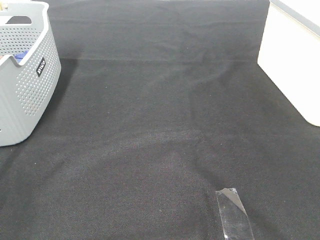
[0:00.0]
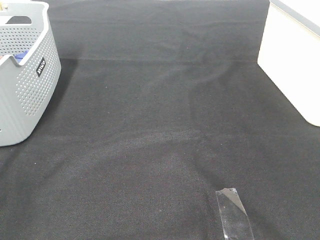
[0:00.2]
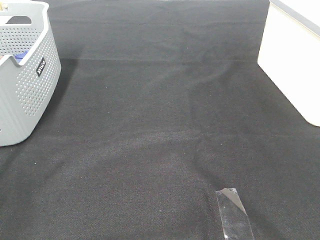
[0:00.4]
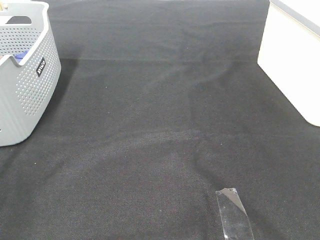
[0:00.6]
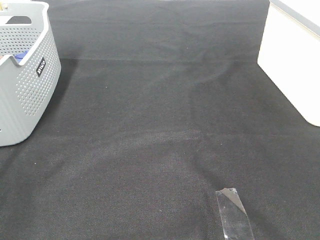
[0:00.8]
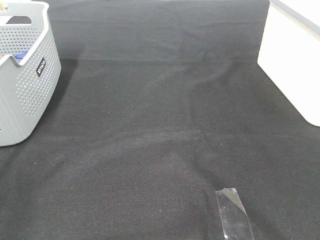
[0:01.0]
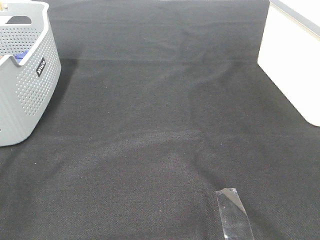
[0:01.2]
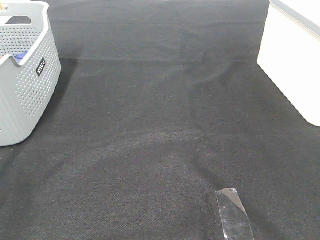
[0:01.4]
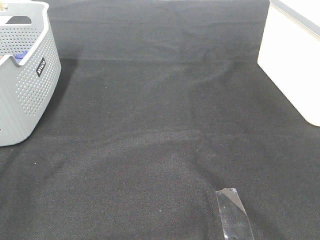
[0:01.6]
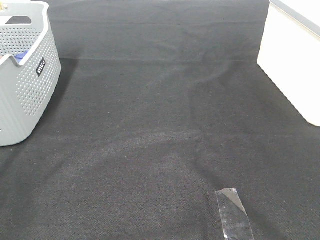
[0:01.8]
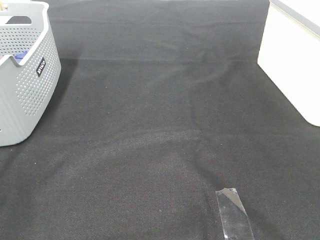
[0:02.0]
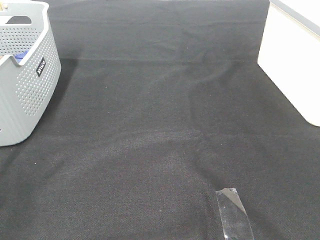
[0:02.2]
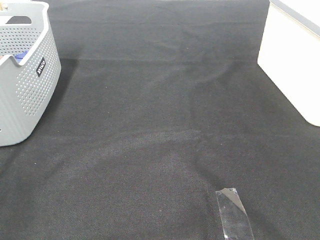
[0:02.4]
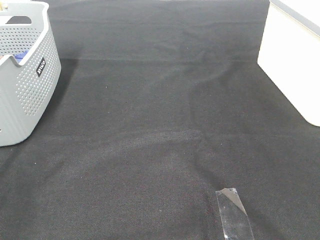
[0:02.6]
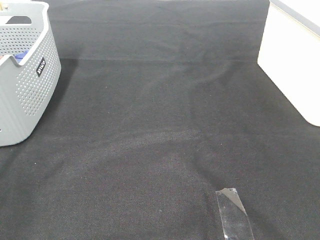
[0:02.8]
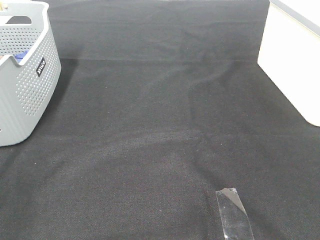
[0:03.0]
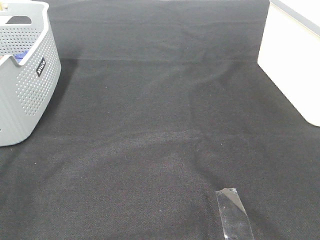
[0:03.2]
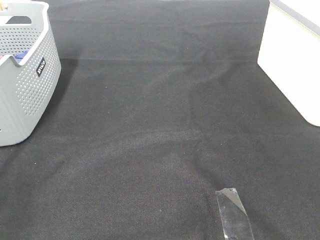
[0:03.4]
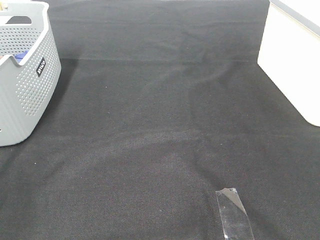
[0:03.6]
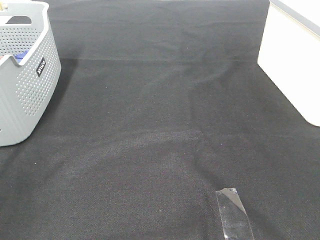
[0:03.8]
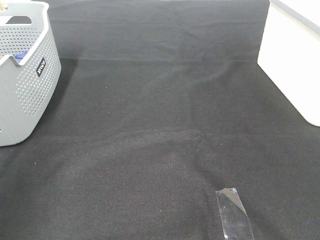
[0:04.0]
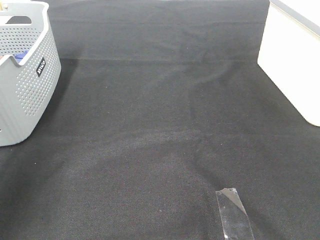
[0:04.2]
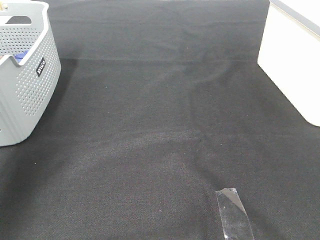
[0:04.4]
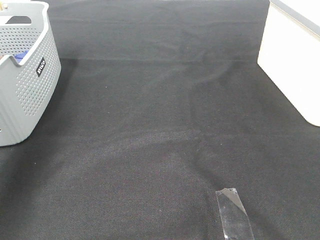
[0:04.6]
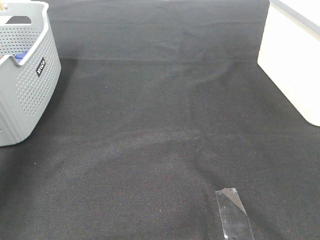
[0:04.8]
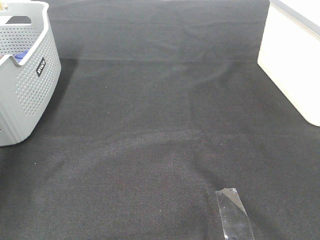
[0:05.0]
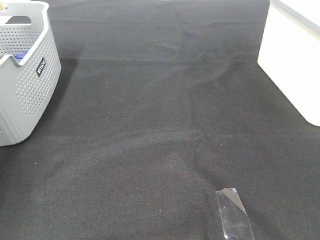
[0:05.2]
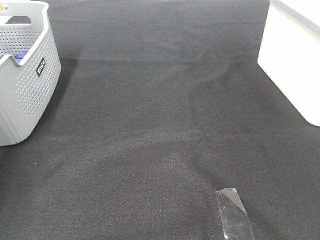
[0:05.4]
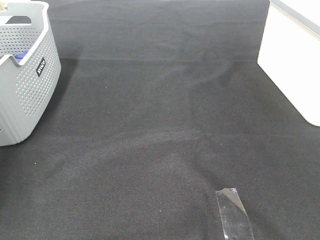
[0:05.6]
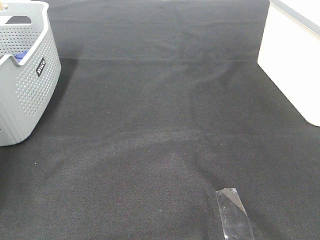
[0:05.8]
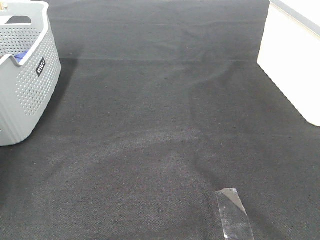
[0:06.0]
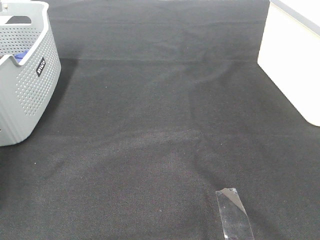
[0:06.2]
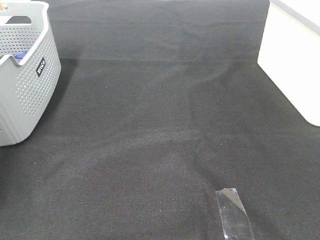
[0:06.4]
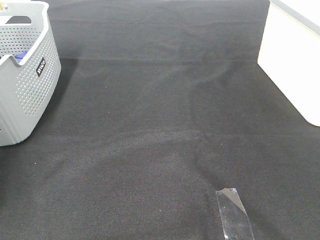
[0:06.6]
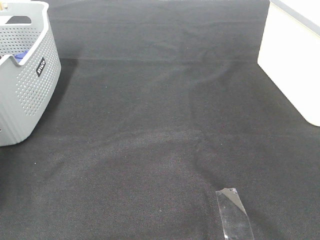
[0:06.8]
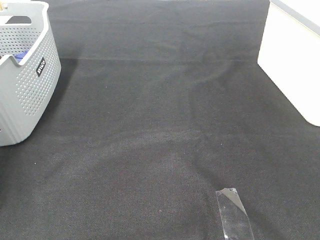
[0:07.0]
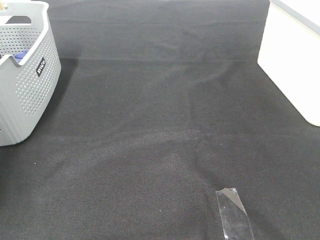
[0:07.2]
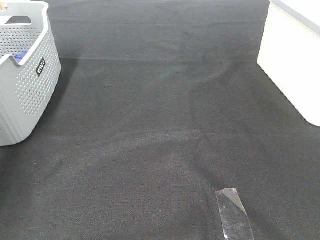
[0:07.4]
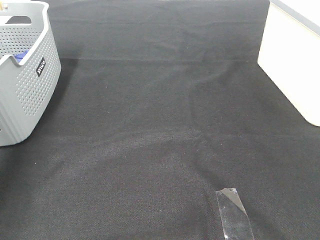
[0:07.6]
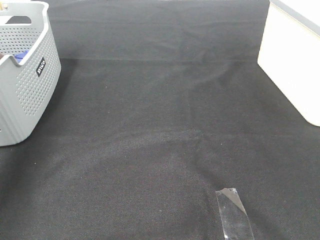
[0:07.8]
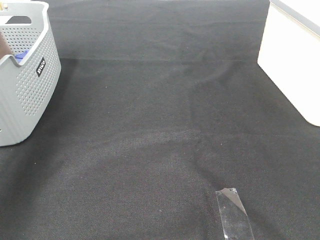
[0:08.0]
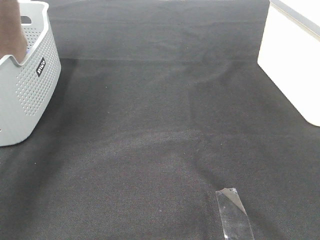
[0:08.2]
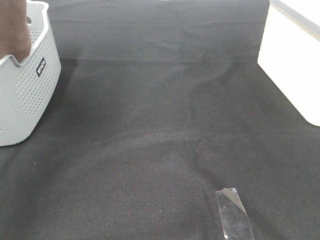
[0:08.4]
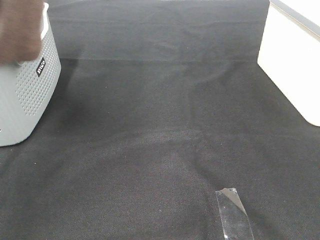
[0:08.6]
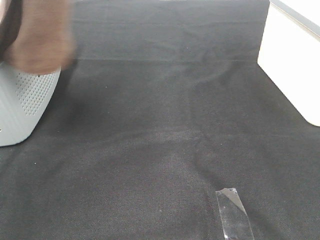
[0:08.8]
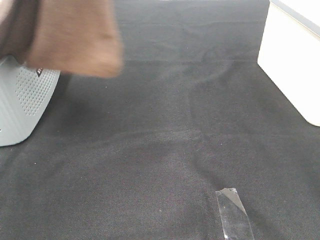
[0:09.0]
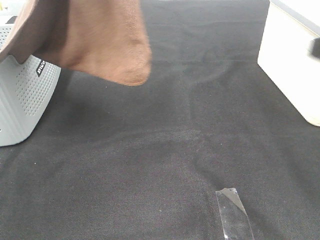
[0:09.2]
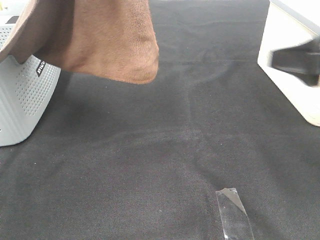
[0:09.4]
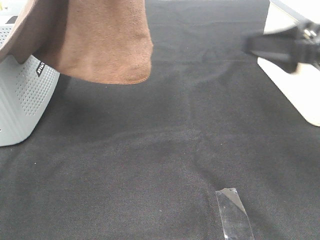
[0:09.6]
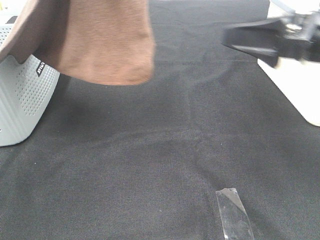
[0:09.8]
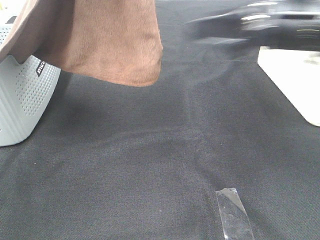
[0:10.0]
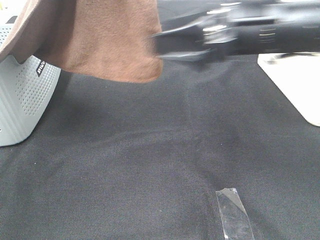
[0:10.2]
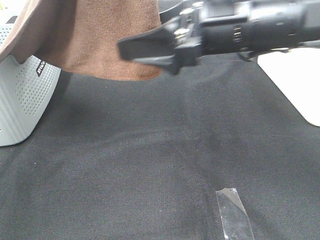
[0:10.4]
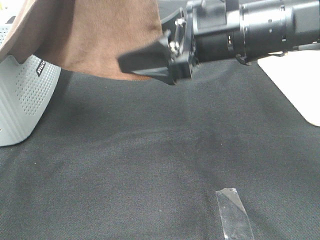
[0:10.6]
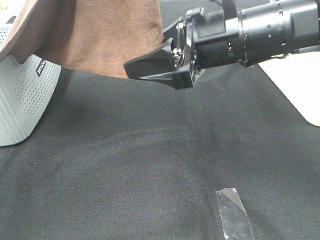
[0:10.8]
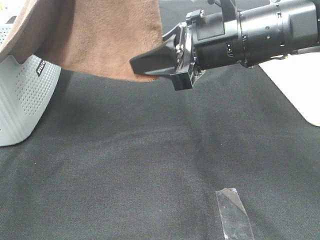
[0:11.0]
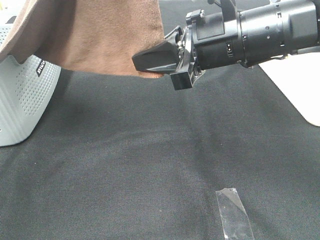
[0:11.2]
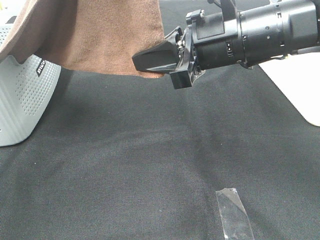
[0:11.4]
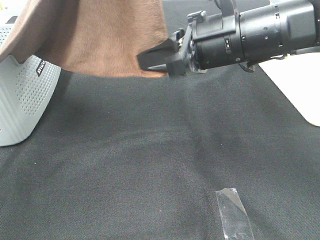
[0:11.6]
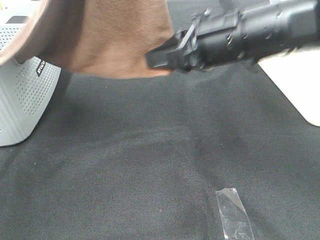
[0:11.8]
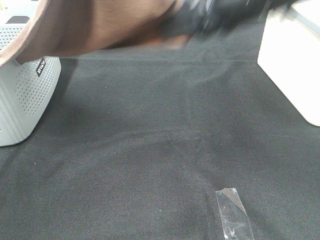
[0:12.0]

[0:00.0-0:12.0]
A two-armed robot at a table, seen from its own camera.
Task of the whole recording: Remove the towel and place it.
Step, 0:07.8 to 0:12.0: Right hand: grab a corner of the brown towel and straighten it.
0:00.0 to 0:03.0: The two grippers keep their place.
0:03.0 to 0:04.4: The left gripper travels forward and upward by roughly 30 cm.
0:04.4 to 0:06.0: The left gripper goes approximately 30 cm forward and downward.
0:07.6 to 0:09.0: The left gripper moves to the right, backward and upward, some 25 cm, while the right gripper moves forward, approximately 10 cm.
0:09.0 to 0:10.4: The right gripper is displaced to the left and forward by approximately 25 cm.
0:10.4 to 0:12.0: The right gripper is displaced upward by approximately 5 cm, and closes.

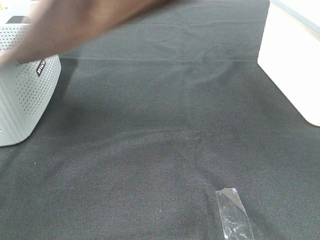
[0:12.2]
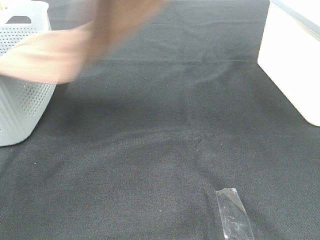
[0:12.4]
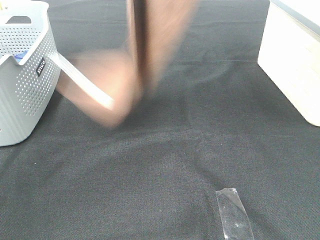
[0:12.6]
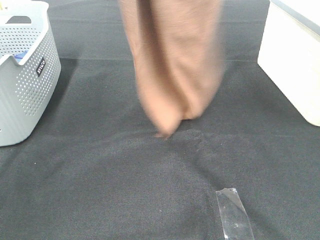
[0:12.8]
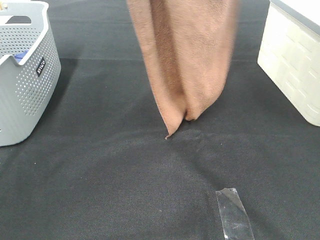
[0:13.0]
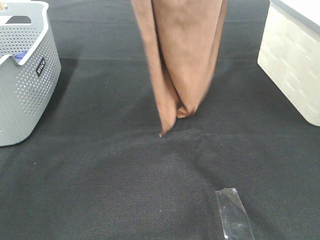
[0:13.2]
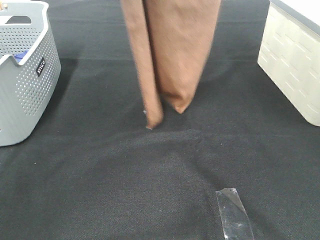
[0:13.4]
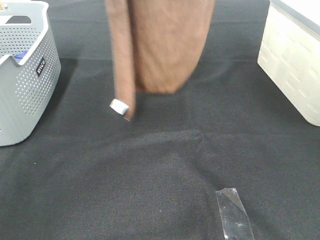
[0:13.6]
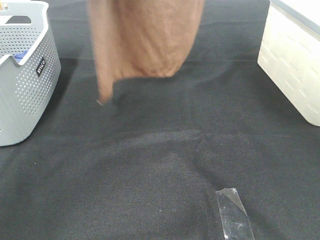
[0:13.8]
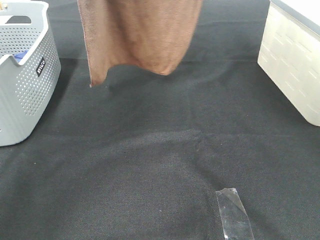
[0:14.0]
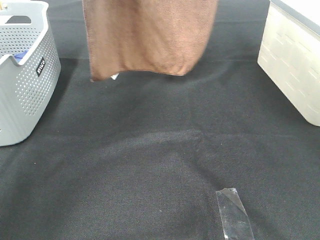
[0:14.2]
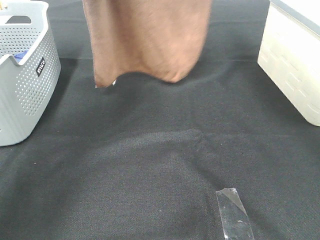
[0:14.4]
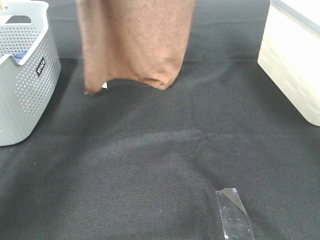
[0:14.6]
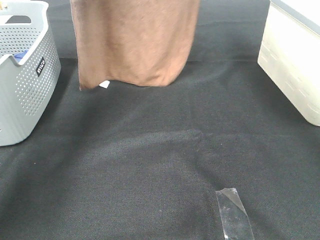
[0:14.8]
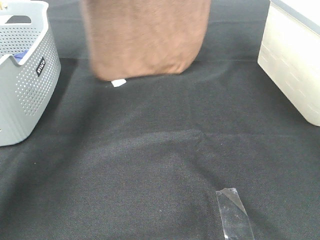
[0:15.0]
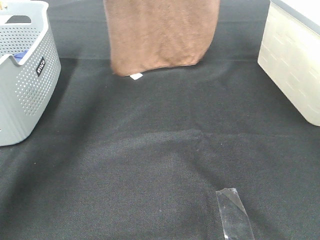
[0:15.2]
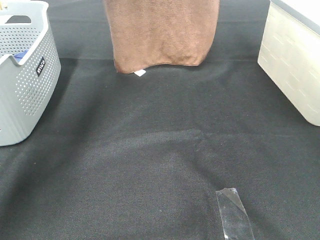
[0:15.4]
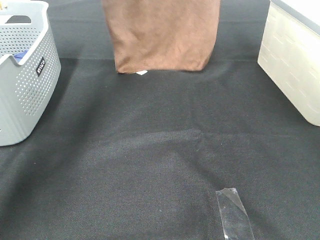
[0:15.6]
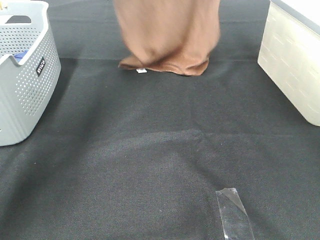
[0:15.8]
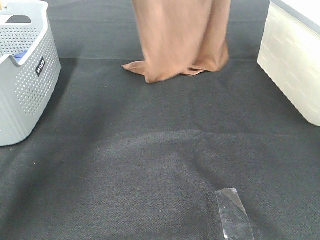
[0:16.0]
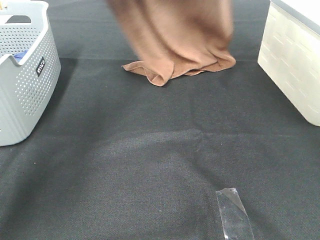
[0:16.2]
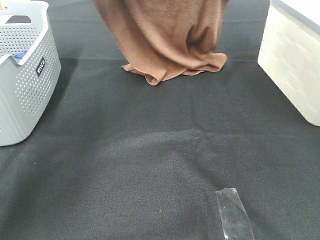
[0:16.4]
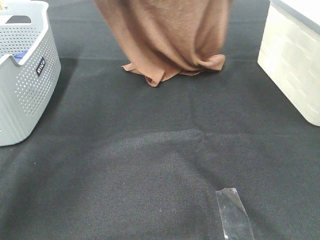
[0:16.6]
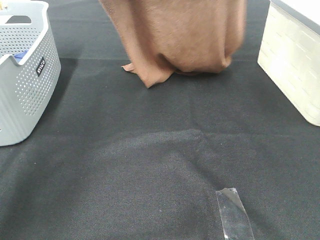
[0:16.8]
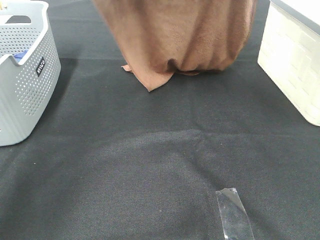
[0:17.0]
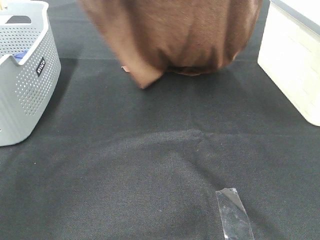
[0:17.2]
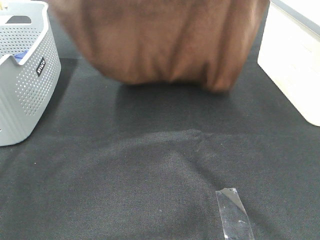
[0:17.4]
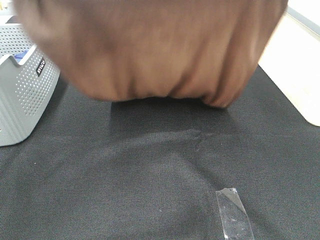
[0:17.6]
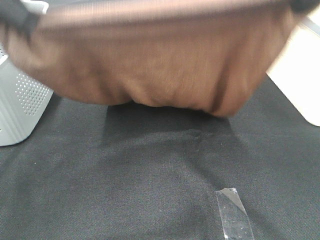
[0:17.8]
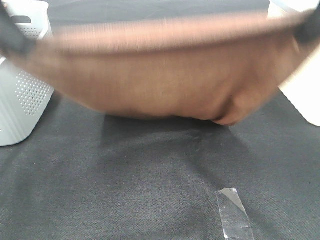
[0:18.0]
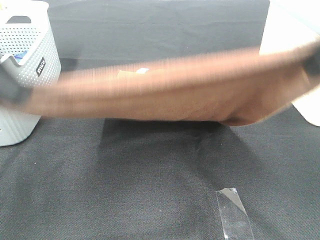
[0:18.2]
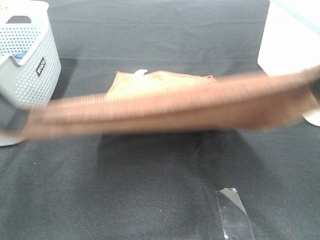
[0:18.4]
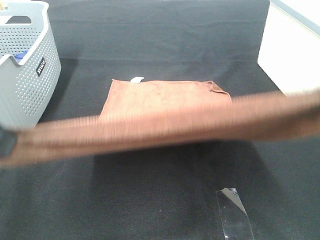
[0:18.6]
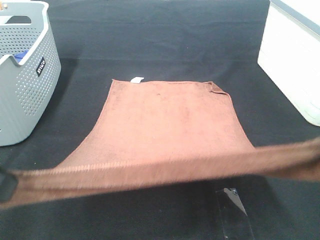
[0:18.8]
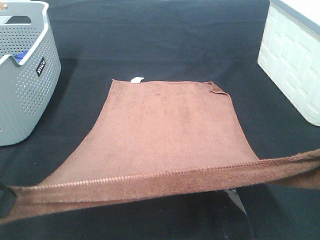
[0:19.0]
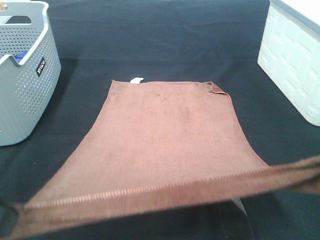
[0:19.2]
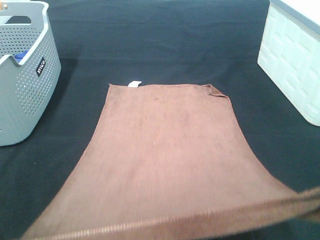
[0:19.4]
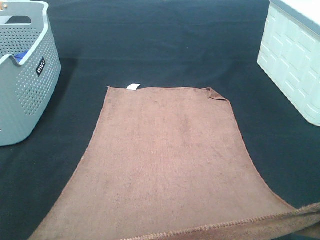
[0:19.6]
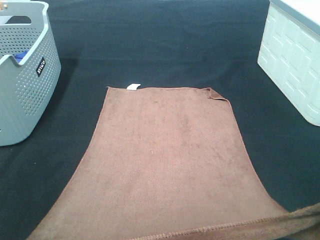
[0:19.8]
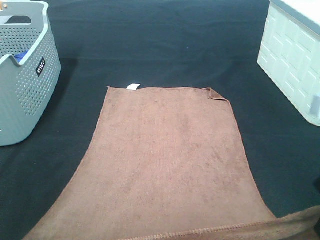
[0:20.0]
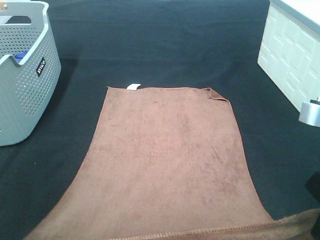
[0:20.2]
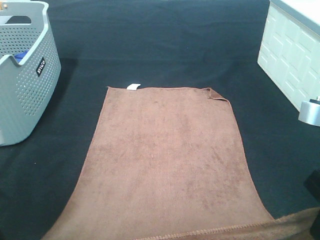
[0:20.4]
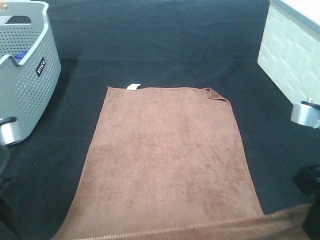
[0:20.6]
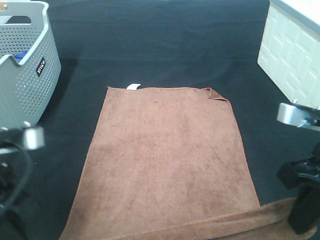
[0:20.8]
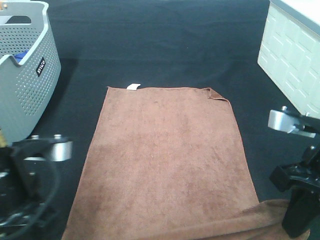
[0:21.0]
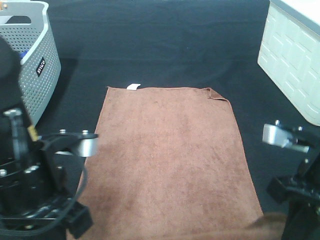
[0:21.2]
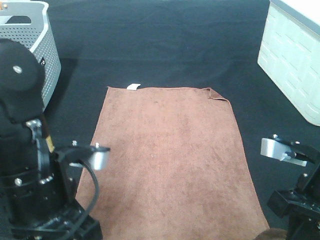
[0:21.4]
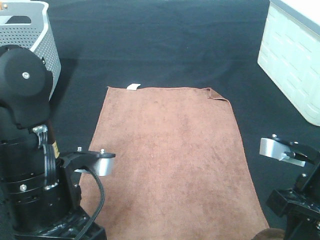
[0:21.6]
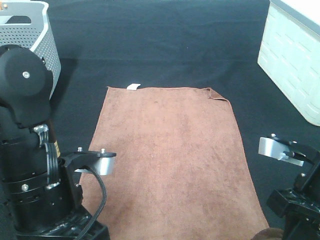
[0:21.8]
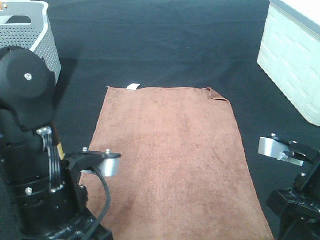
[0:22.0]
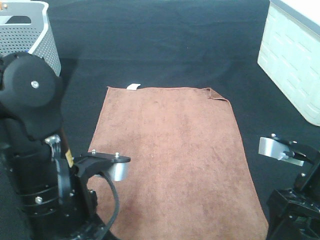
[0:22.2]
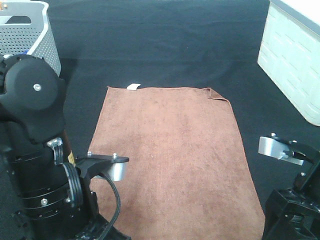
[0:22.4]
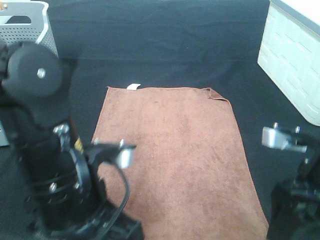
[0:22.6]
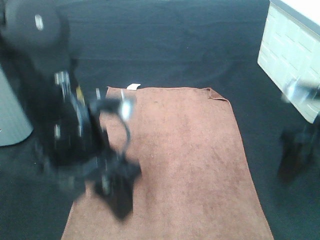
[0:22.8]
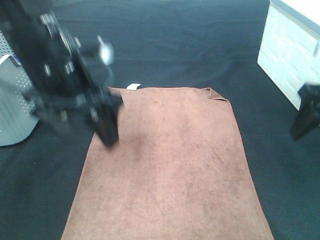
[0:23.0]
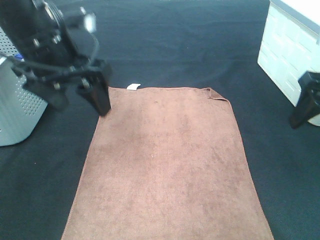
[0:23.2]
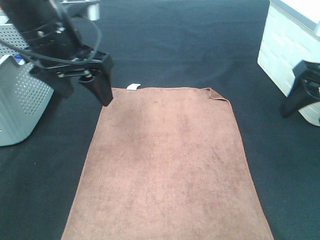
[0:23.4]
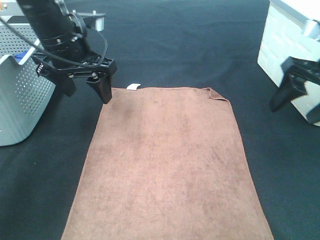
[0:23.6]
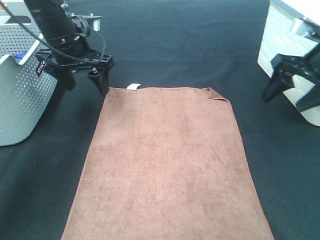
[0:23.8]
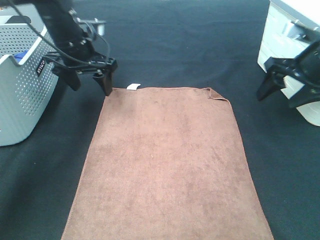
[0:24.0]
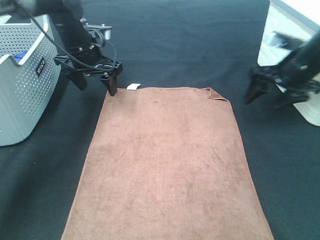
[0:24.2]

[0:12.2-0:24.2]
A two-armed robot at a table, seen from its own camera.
Task of the whole recording: Remove the towel and place it.
Step, 0:12.2 to 0:18.0: Left hand: spread the brown towel flat on the table.
Step, 0:12.2 to 0:18.0: Right hand: spread the brown towel flat on the table.
0:12.2 to 0:13.8: The left gripper moves forward, about 10 cm. The right gripper moves forward and upward, some 15 cm.
0:13.8 to 0:15.2: The right gripper shifts some 10 cm forward, while the left gripper goes about 15 cm forward and downward.
0:15.2 to 0:16.6: Both grippers travel together backward, about 5 cm.
0:16.6 to 0:18.2: Both grippers travel together backward, about 25 cm.
0:18.2 to 0:19.8: Both grippers move downward and backward, roughly 15 cm.
0:19.8 to 0:21.2: The right gripper goes approximately 10 cm downward and forward. Meanwhile the left gripper shifts roughly 10 cm to the right and forward.
0:21.2 to 0:22.6: The left gripper opens up; the right gripper opens.
0:22.6 to 0:24.2: Both grippers travel together forward, approximately 25 cm.
